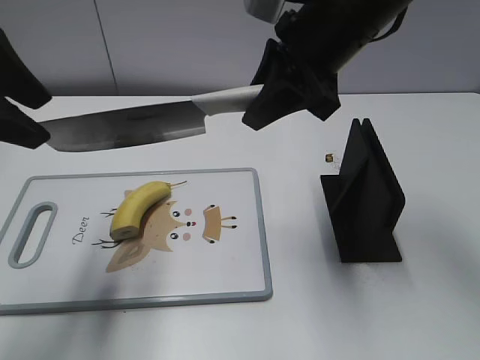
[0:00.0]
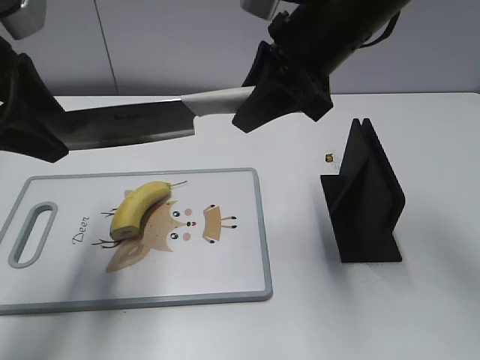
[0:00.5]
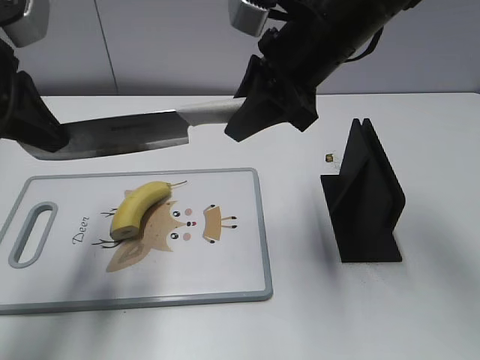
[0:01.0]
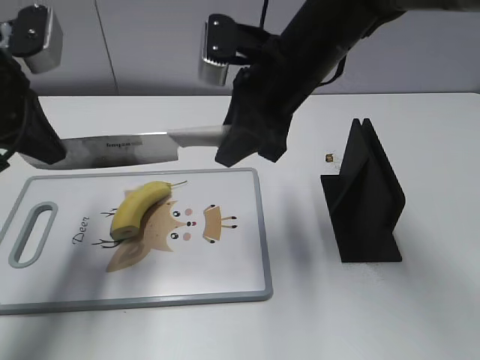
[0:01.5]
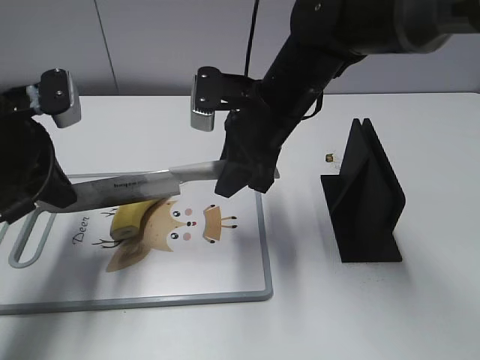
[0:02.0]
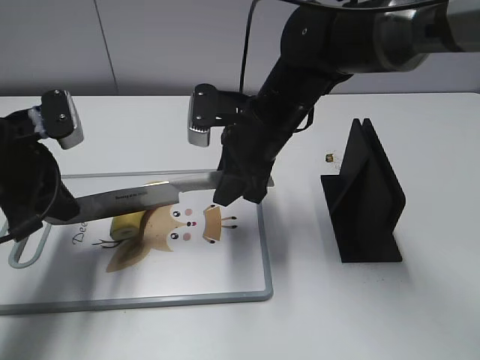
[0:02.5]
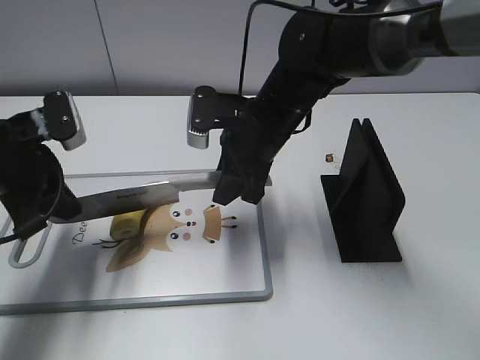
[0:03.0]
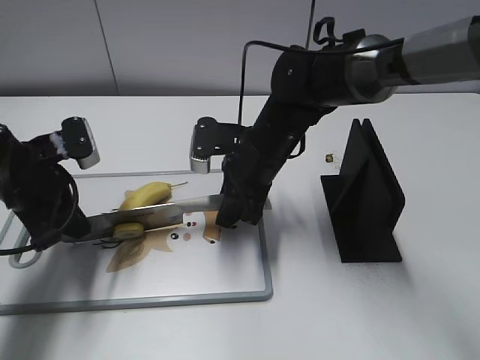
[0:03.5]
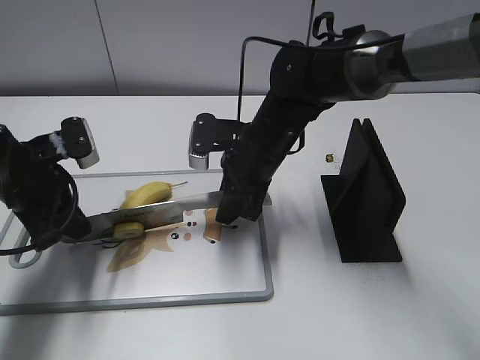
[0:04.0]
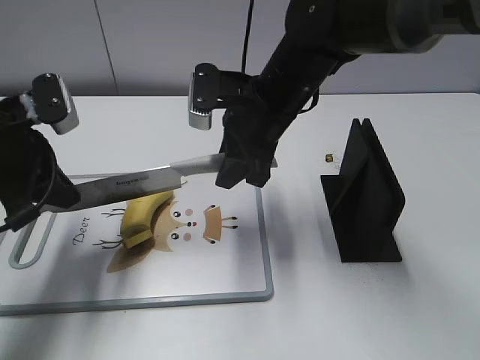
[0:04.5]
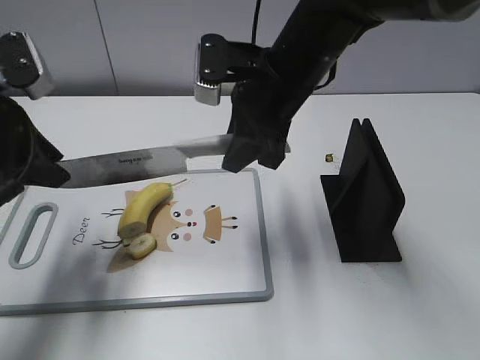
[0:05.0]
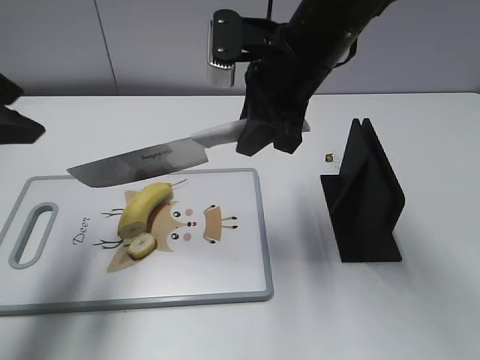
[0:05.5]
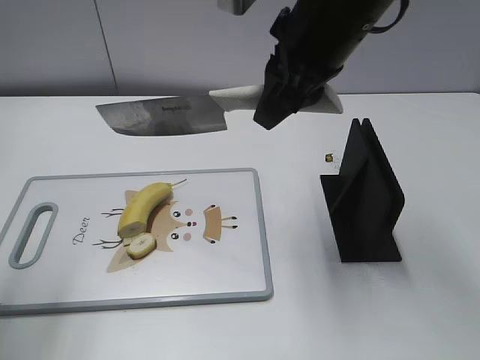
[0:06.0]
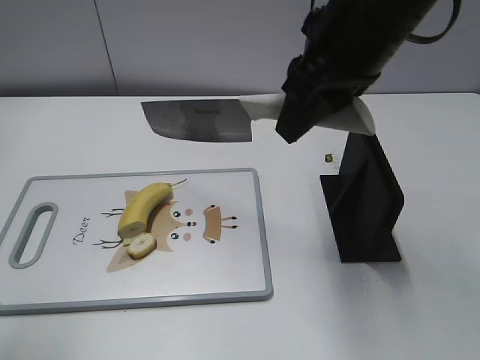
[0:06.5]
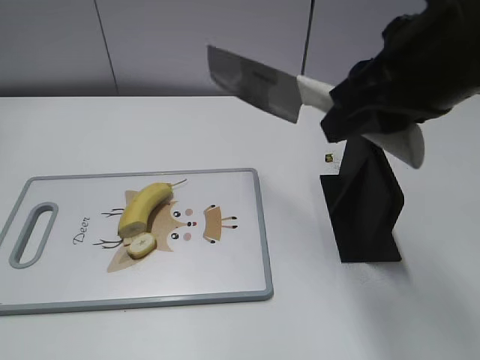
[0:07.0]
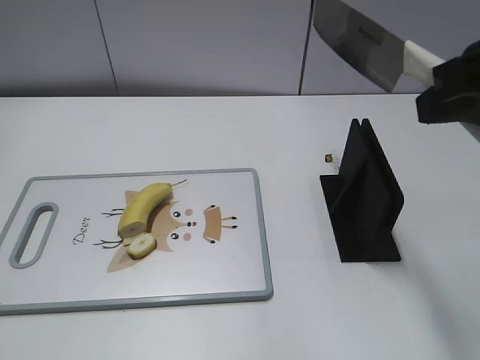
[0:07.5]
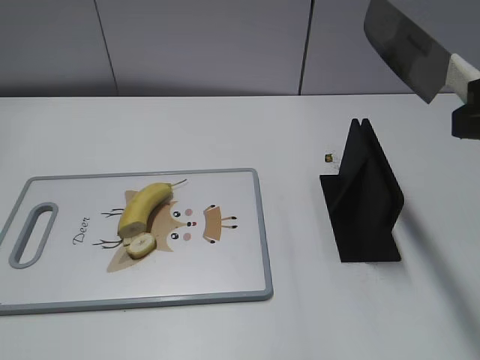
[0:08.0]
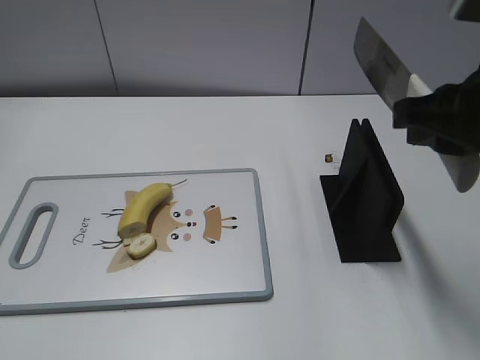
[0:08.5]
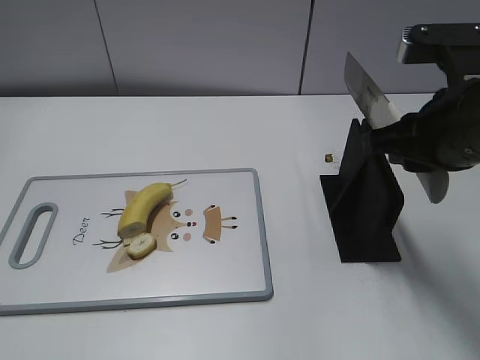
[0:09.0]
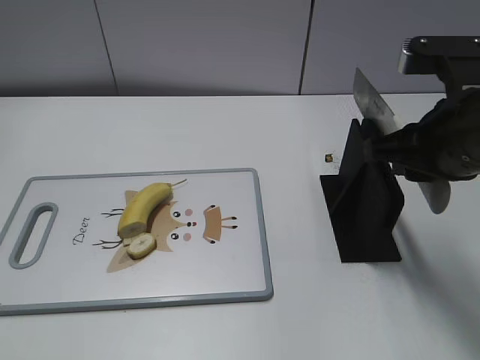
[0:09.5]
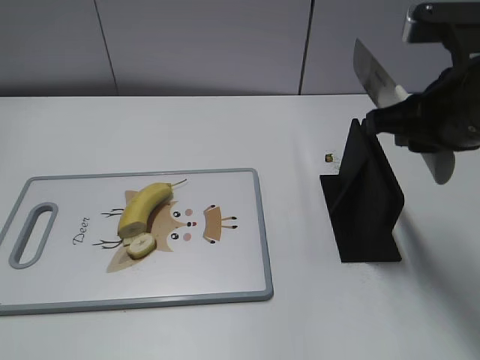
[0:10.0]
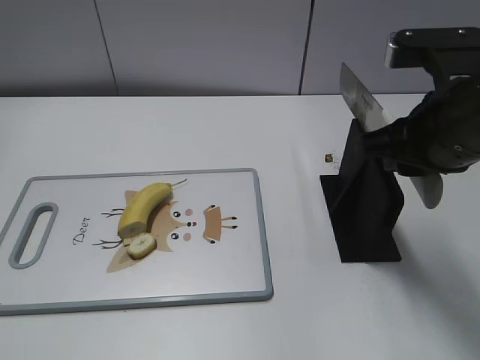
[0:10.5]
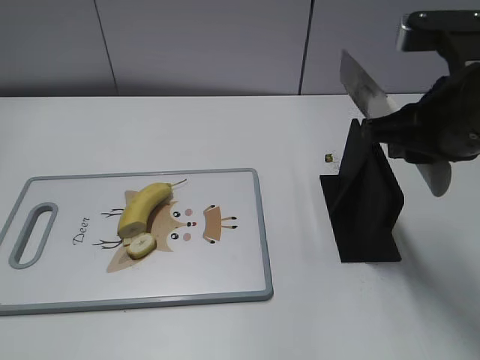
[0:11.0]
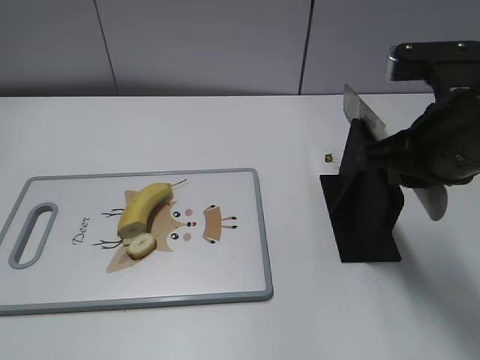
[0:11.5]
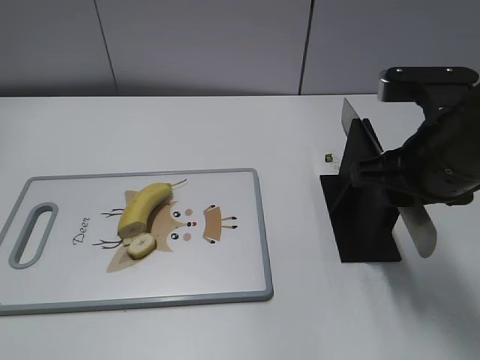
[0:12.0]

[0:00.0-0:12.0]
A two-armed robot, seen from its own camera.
Task of the whole recording: cut banana.
Step, 0:00.0 to 0:04.0: Hold the blade with your left hand.
Step, 0:04.5 to 0:07.5: Cut the banana with your right hand.
0:00.0 to 0:02.0: The grippers both shift downward by about 10 cm. The left gripper closes.
0:02.0 to 0:04.0: The two grippers go approximately 5 cm downward.
0:04.0 to 0:06.0: The left gripper goes approximately 25 cm upward and backward, and opens. The right gripper is displaced upward by about 20 cm.
0:06.0 to 0:08.0: The left gripper travels backward and downward by approximately 20 cm, while the right gripper moves backward and to the right, about 20 cm.
0:08.0 to 0:10.0: The right gripper shifts approximately 10 cm forward and downward.
0:10.0 to 0:12.0: There are only small adjustments of the grippers.

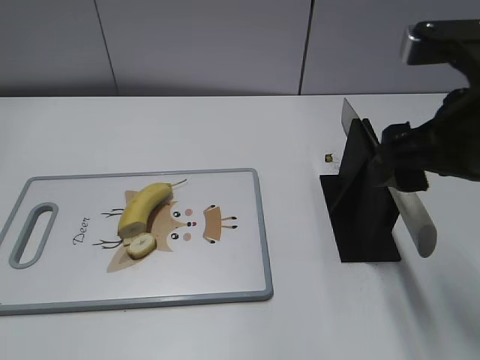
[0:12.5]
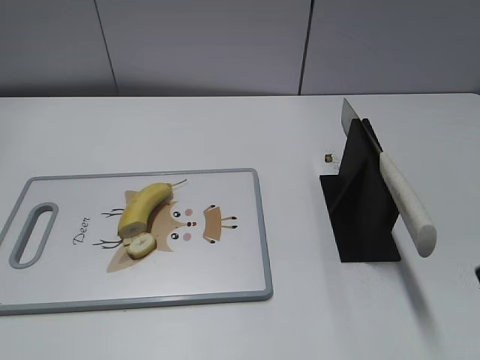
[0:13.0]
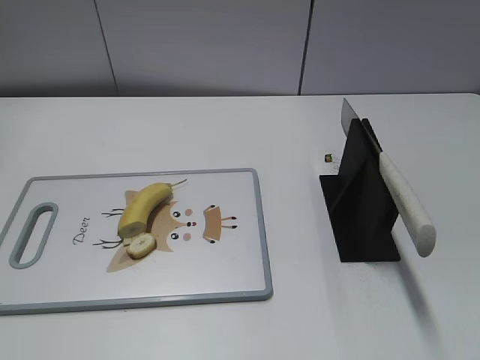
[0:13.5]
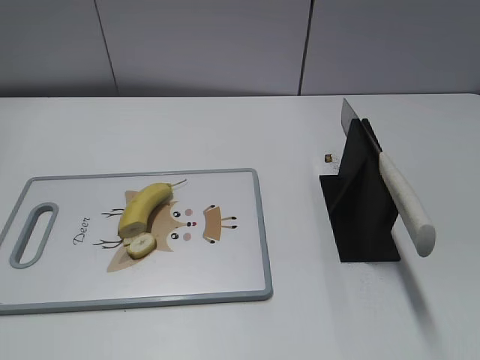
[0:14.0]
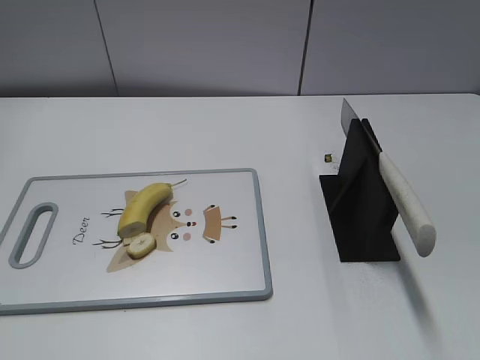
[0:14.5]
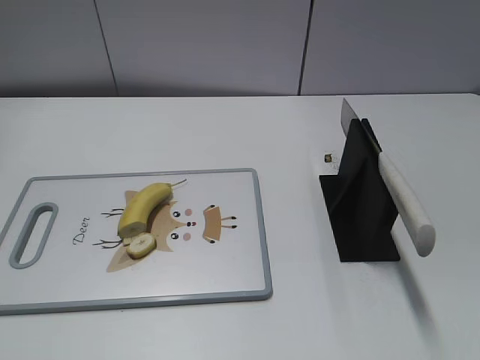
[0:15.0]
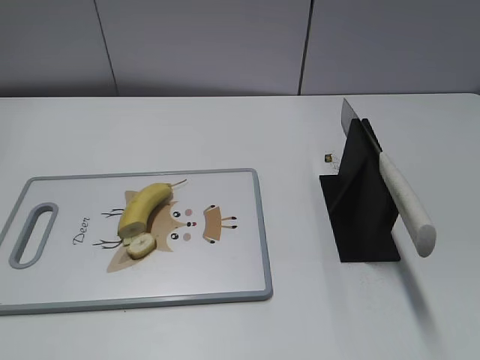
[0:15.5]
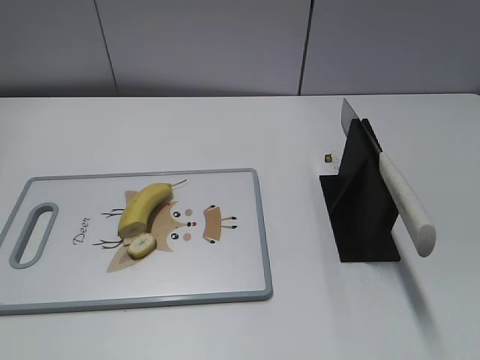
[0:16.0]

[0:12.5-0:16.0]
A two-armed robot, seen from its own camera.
Task of the whole recording: cut banana.
Step, 0:12.5 to 0:16.0: Place the knife on the storage rack with your right hand.
0:12.5 to 0:14.5: The right gripper moves backward and to the right, approximately 25 cm.

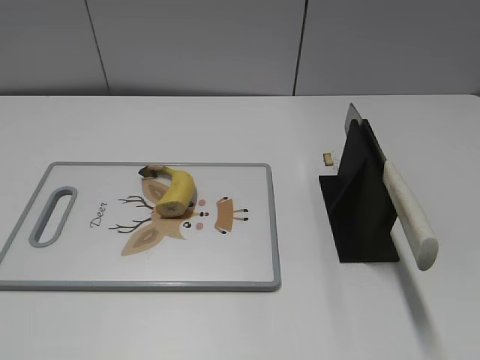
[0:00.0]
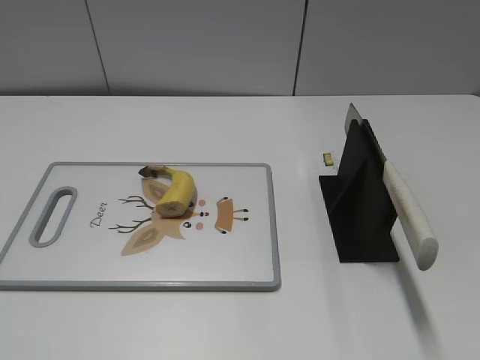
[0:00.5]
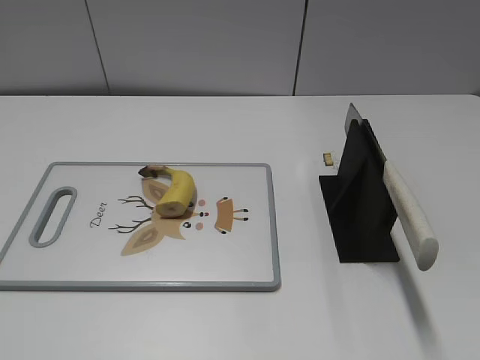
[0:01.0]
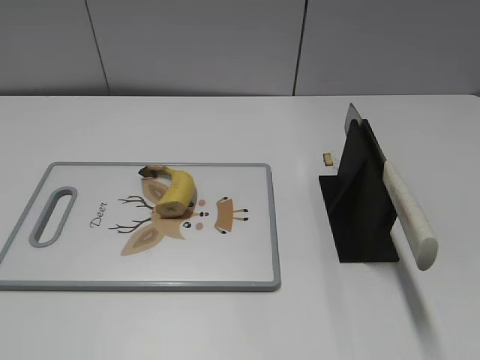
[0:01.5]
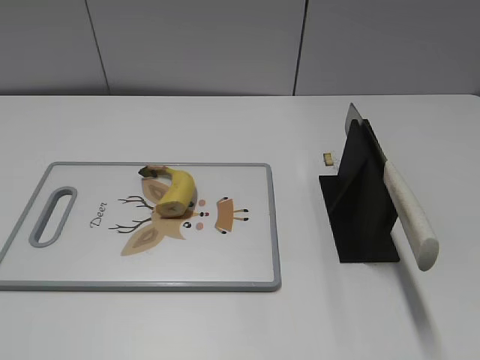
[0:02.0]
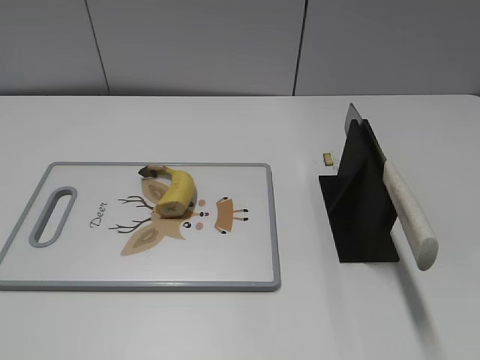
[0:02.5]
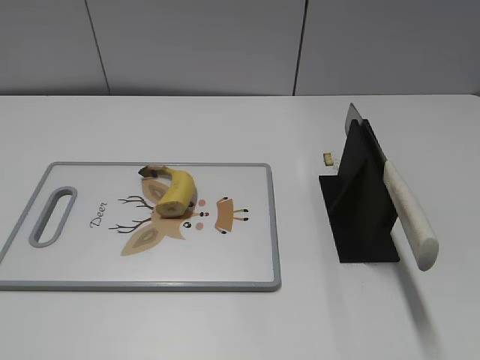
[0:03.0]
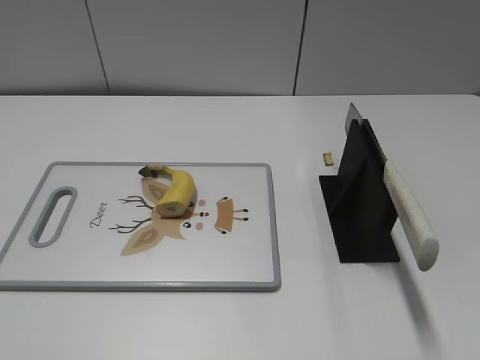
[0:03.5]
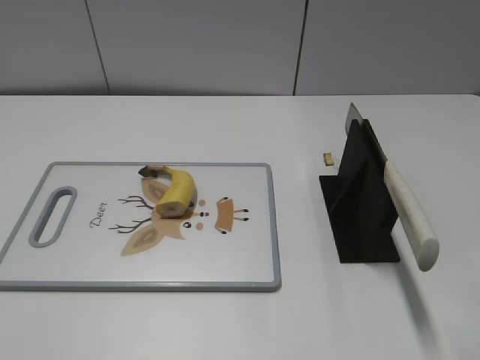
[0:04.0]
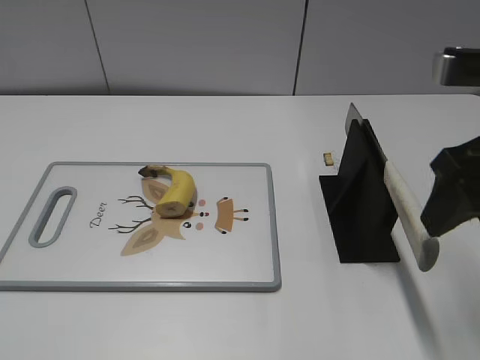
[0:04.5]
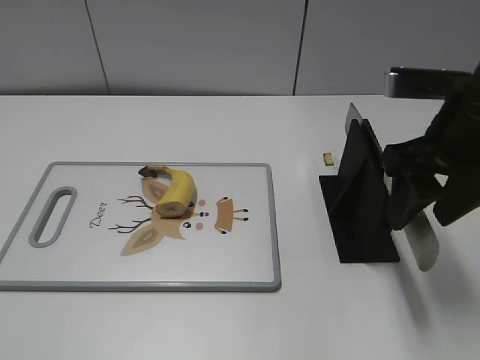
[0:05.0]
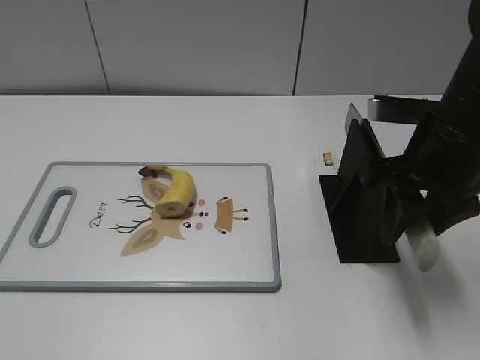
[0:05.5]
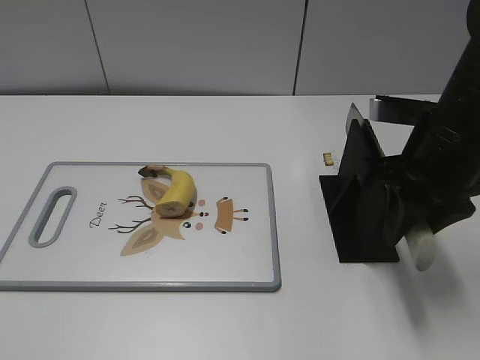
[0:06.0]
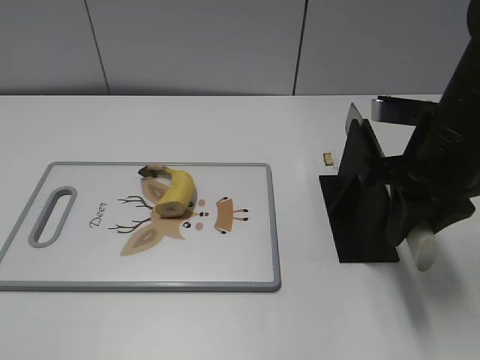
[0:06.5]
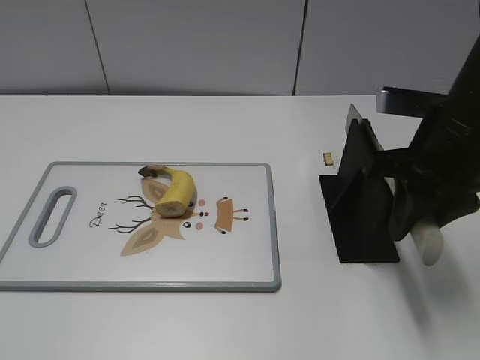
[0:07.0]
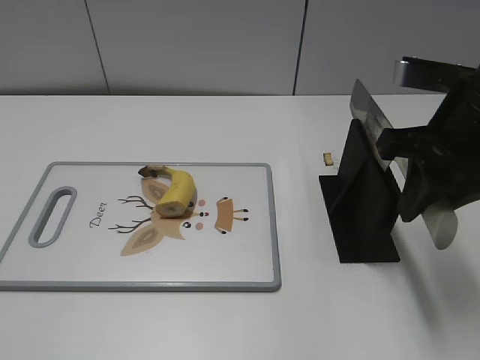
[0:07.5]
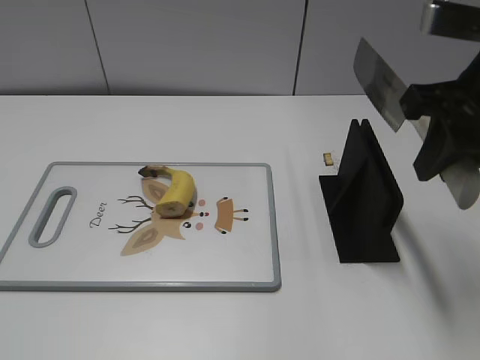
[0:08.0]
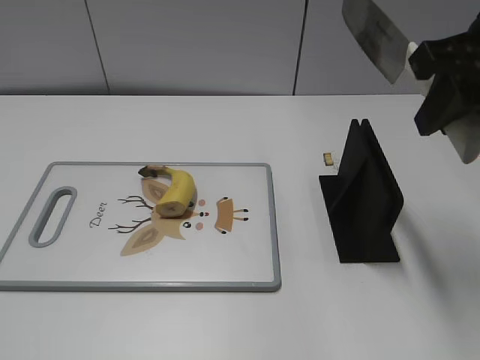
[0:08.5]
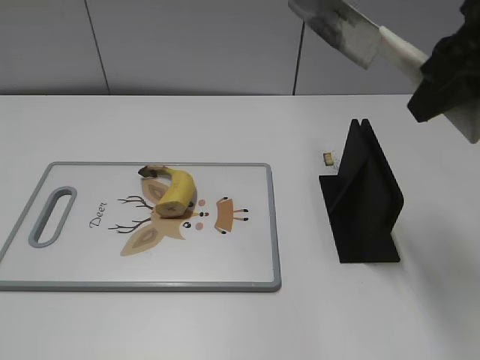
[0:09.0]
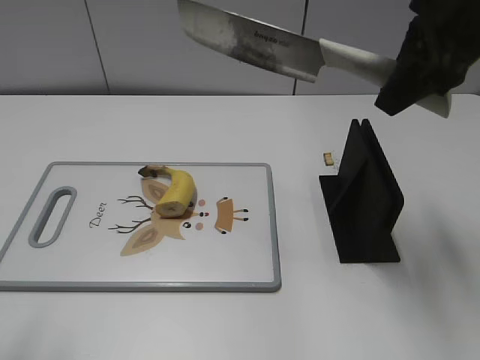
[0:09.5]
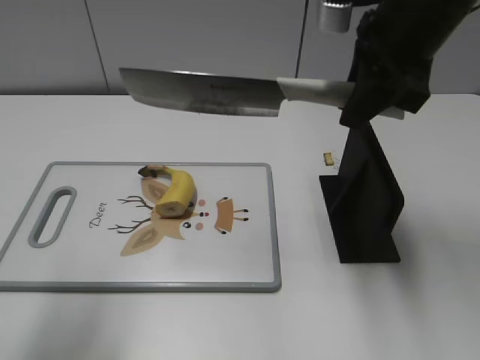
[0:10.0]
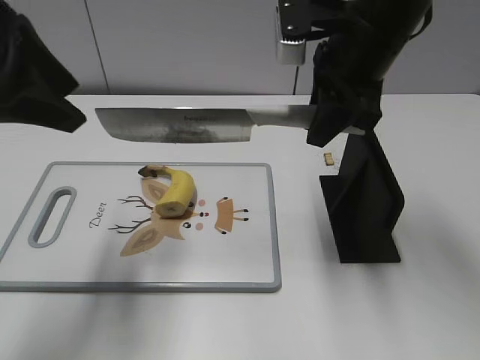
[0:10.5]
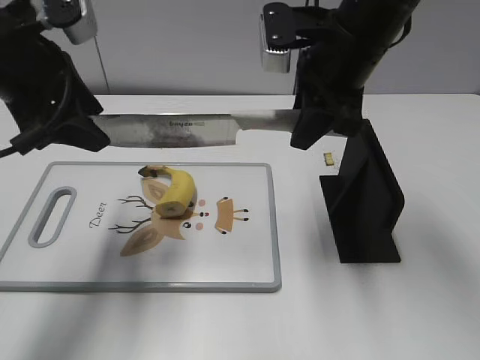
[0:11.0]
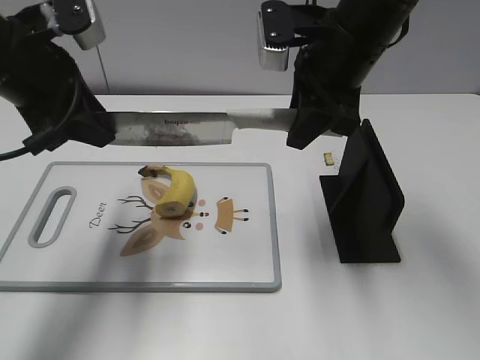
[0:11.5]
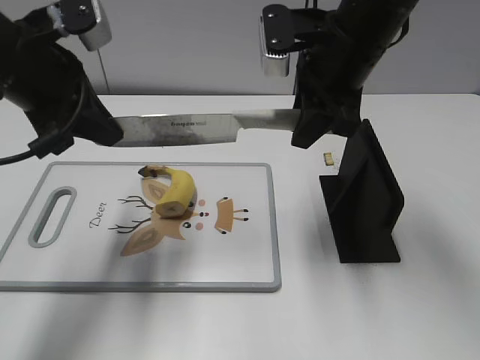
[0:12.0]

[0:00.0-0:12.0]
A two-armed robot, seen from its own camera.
Task of the whole recording: cut banana.
Step, 0:00.0 to 0:08.0: Grab the knife handle with your right hand.
0:04.0 to 0:06.0: The right gripper moves downward and forward, some 15 cm, and closes up.
0:06.0 to 0:08.0: The right gripper shifts roughly 10 cm upward.
0:08.0 to 0:10.0: The right gripper travels forward and to the left by about 10 cm, while the left gripper travels forward and upward by approximately 20 cm.
0:10.0 to 0:12.0: The left gripper moves forward, downward and to the right, approximately 15 cm, and closes up. Meanwhile the right gripper ends up roughly 5 cm from where it was.
